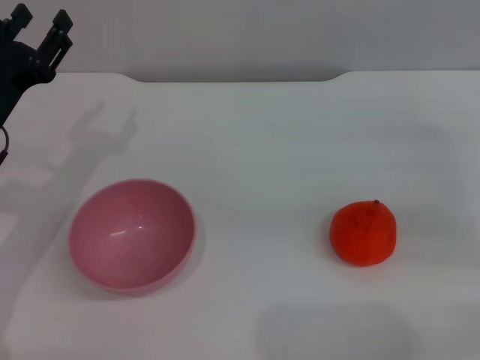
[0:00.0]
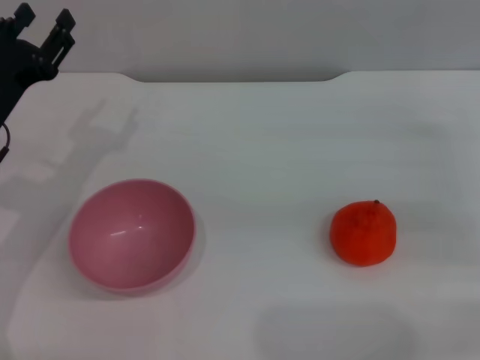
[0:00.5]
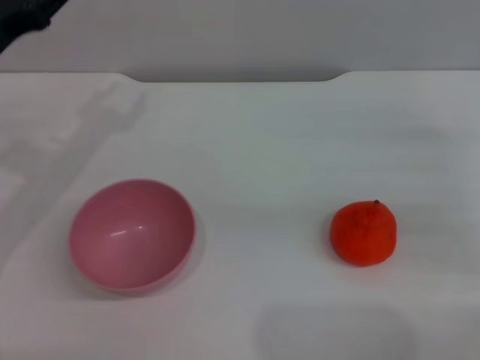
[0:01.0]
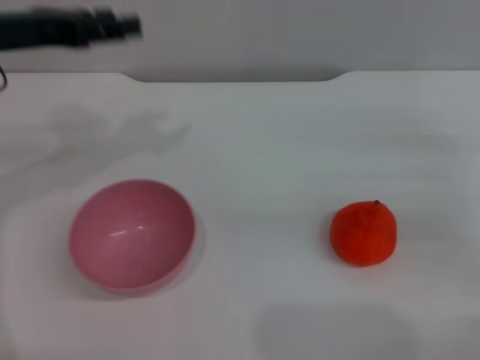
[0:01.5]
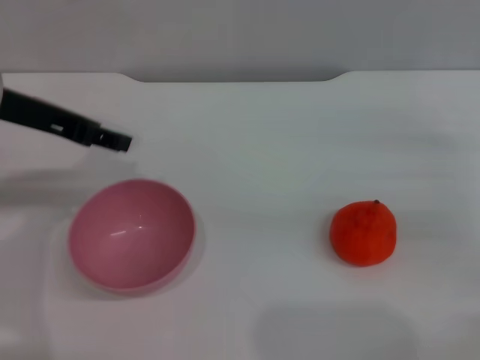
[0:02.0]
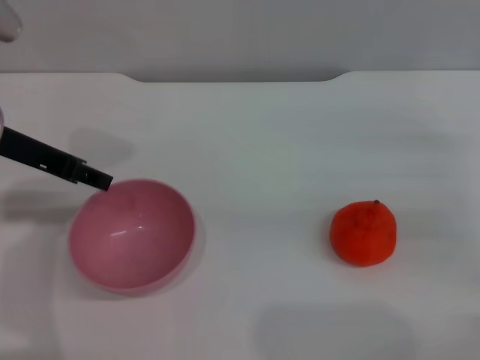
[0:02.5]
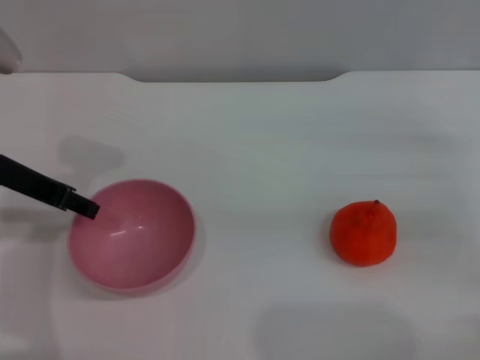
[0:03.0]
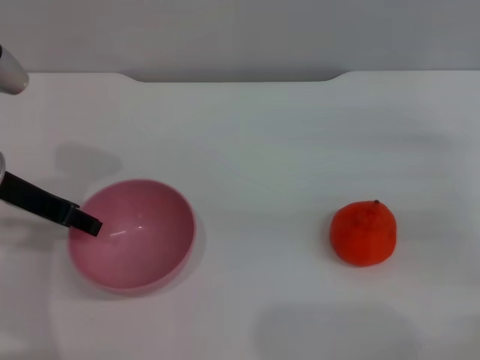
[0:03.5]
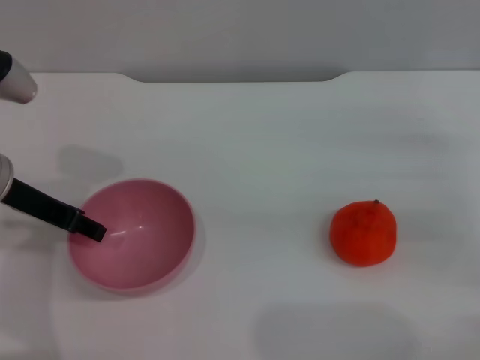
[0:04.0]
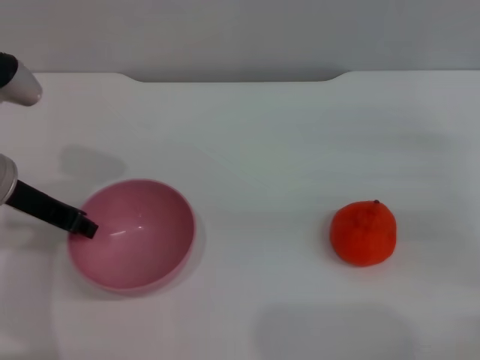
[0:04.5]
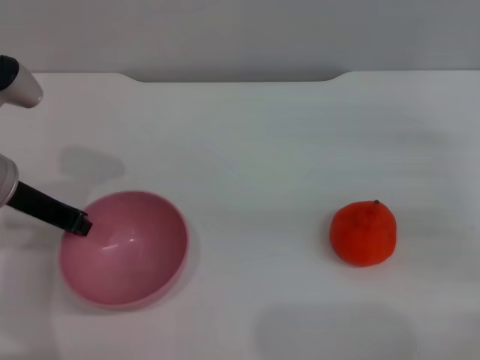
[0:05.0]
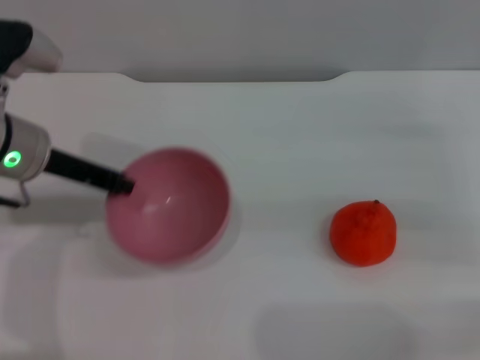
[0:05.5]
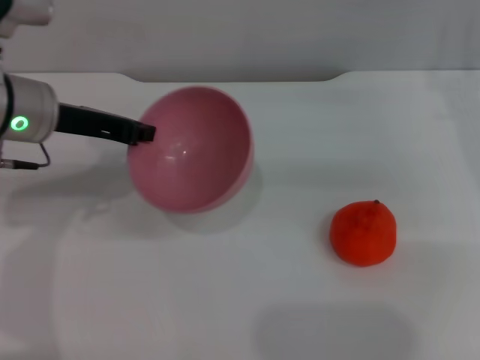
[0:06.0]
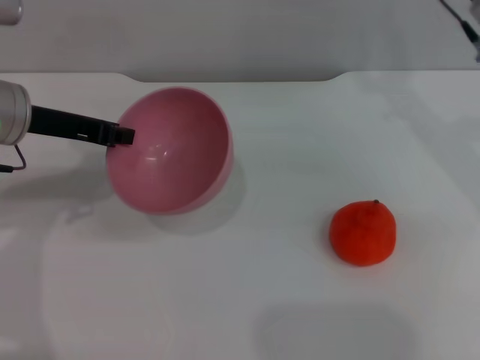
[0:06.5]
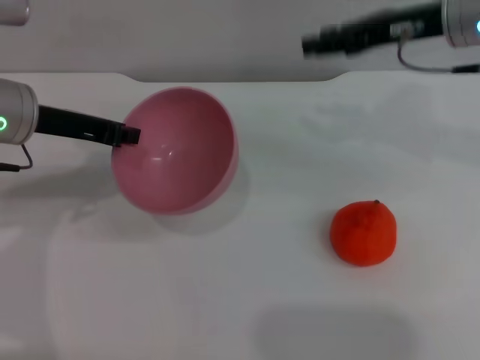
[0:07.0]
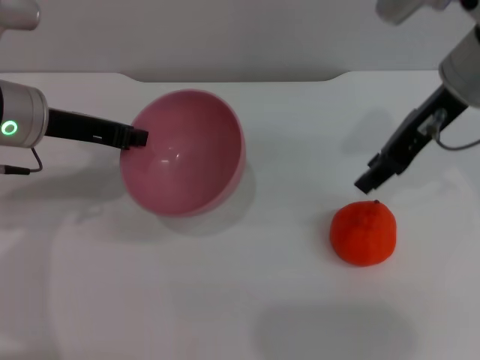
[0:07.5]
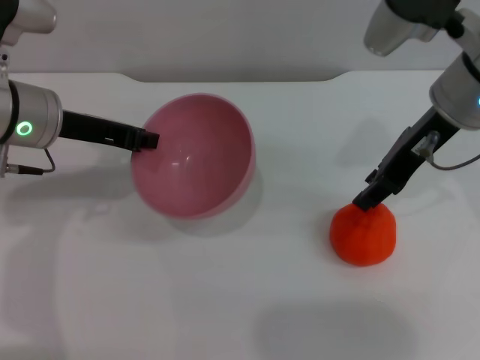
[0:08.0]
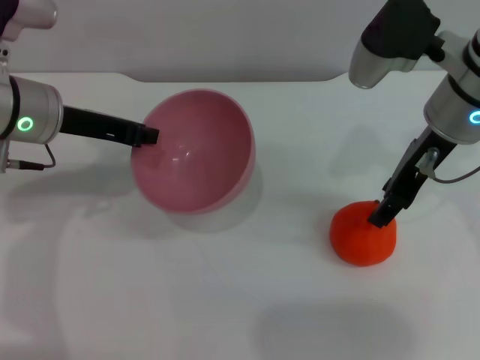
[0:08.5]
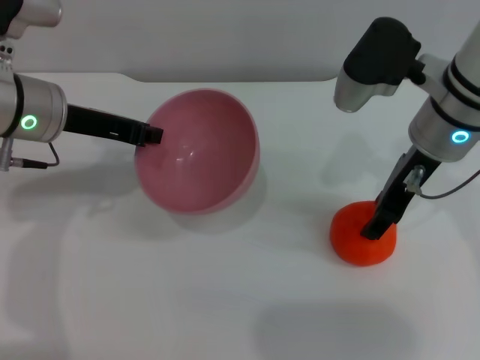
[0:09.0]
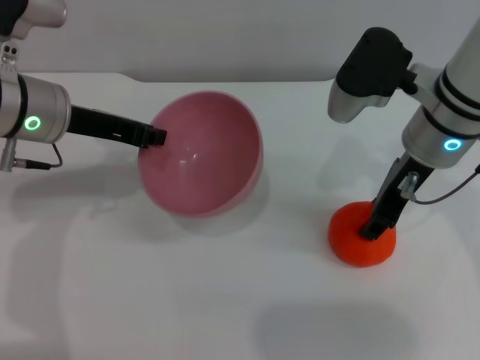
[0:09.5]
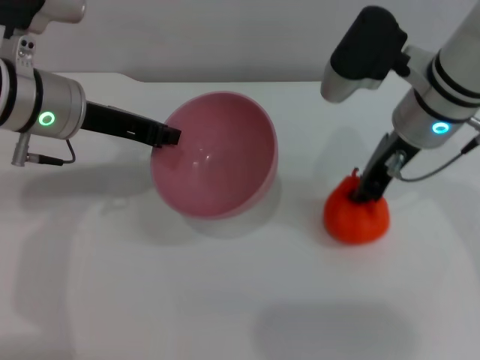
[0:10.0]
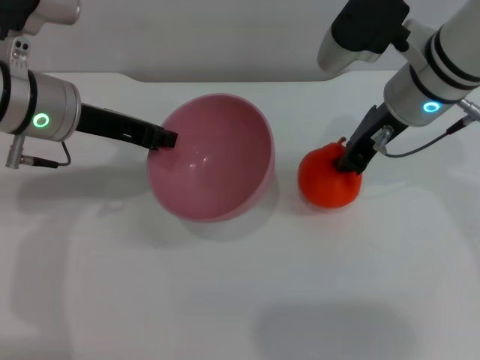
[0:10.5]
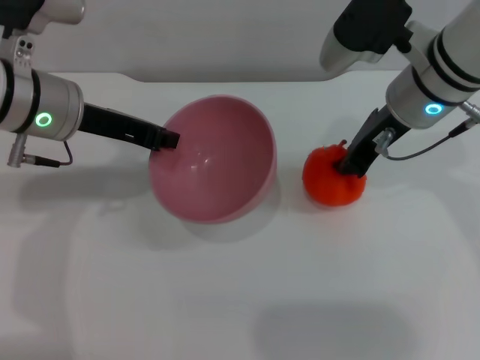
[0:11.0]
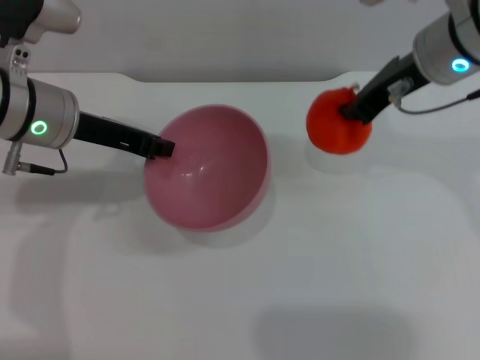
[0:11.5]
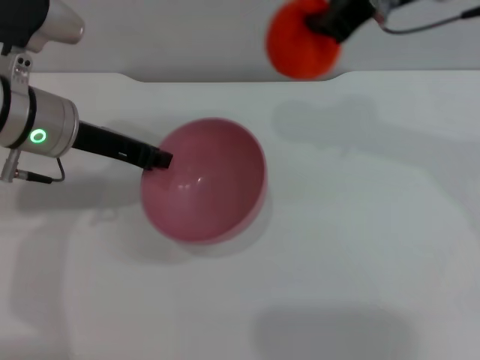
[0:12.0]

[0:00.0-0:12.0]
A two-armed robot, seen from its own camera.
Task of the whole recording: put the orange into the pink bowl and pour it out repeatedly.
Step, 0:00.0 to 0:05.5: Pick up the bowl with the left gripper.
Step, 0:06.0 to 0:10.0: Pick up the orange with the right gripper.
0:00.0 to 0:02.0: The left gripper travels upward by roughly 10 cm.
0:02.0 to 0:04.0: The left gripper travels downward by about 5 cm.
0:04.0 to 0:06.0: The right gripper moves forward, upward and to the left, approximately 10 cm. Meanwhile the left gripper changes place by roughly 5 cm, and closes up.
0:06.0 to 0:08.0: The right gripper goes roughly 10 cm to the left and upward.
0:08.0 to 0:10.0: The right gripper closes up.
0:10.0 to 0:12.0: The right gripper heads upward, covering some 15 cm.

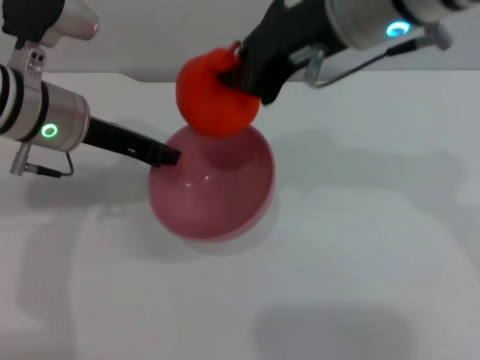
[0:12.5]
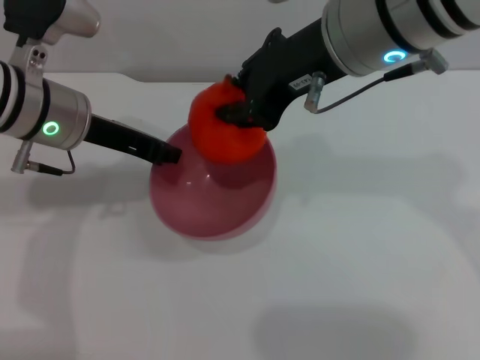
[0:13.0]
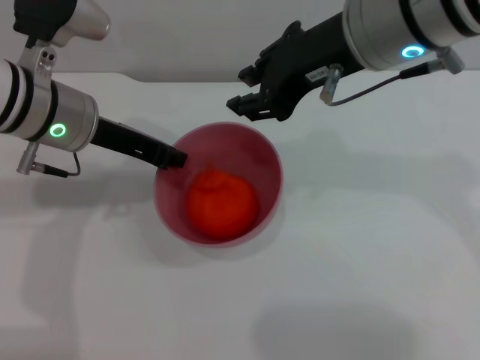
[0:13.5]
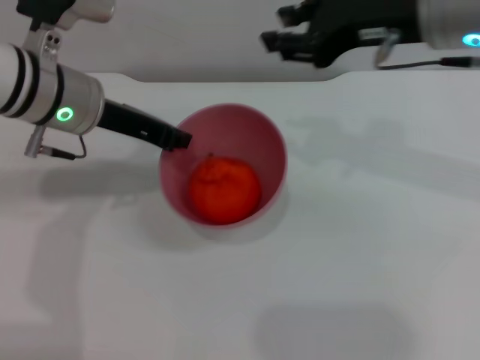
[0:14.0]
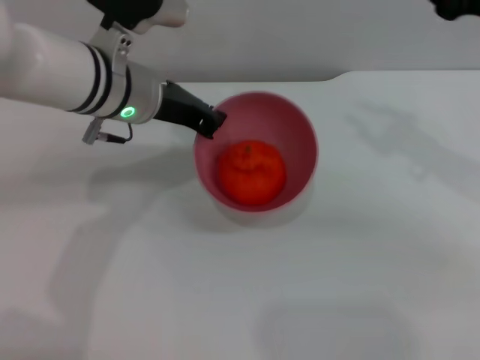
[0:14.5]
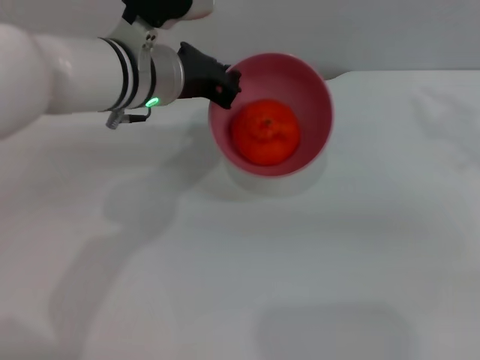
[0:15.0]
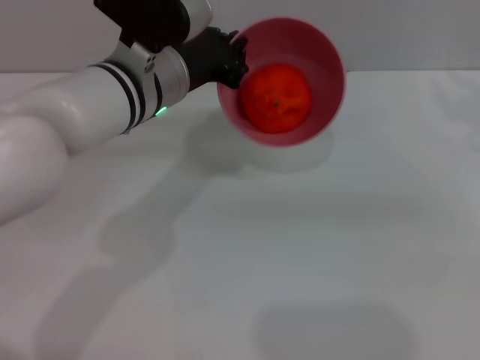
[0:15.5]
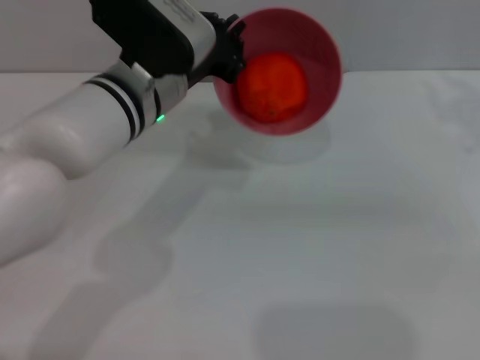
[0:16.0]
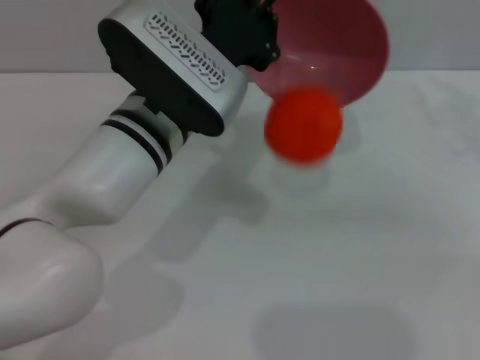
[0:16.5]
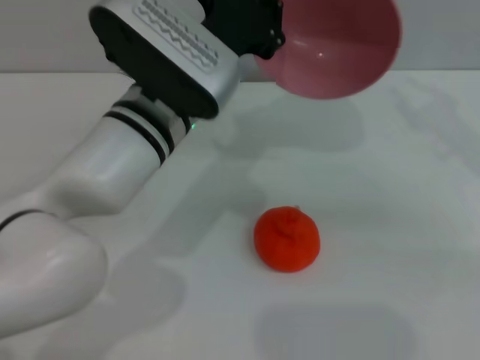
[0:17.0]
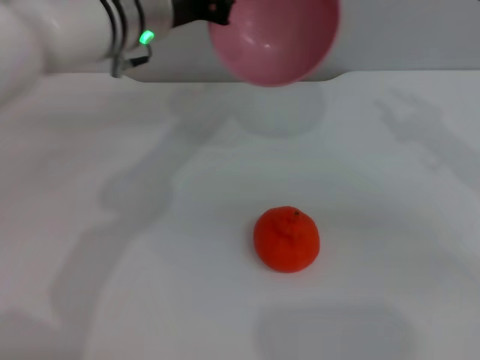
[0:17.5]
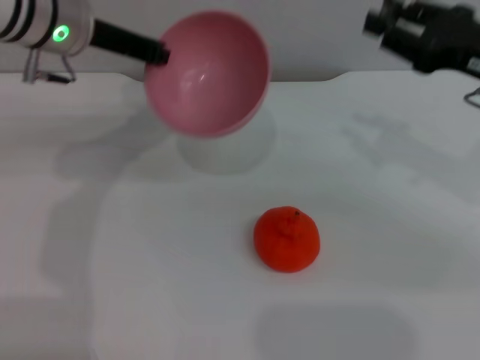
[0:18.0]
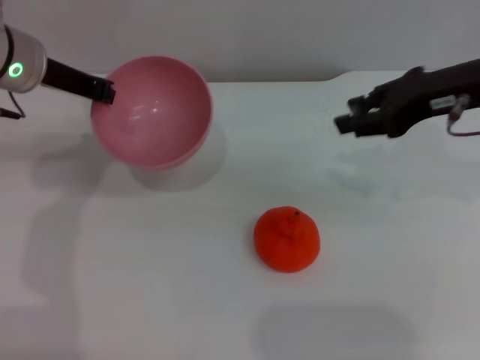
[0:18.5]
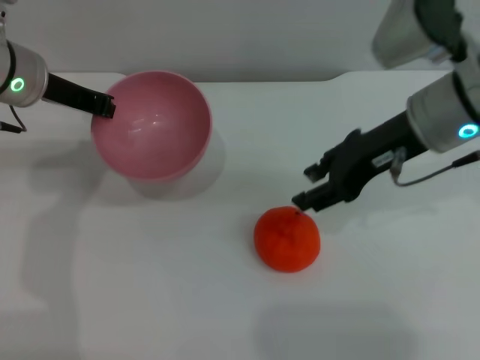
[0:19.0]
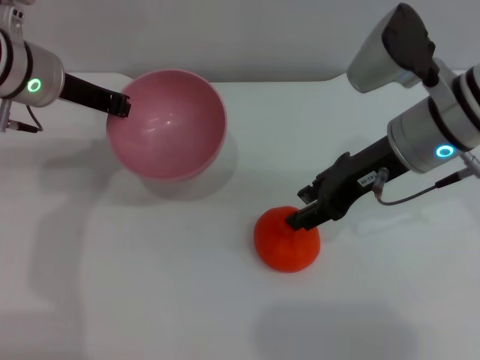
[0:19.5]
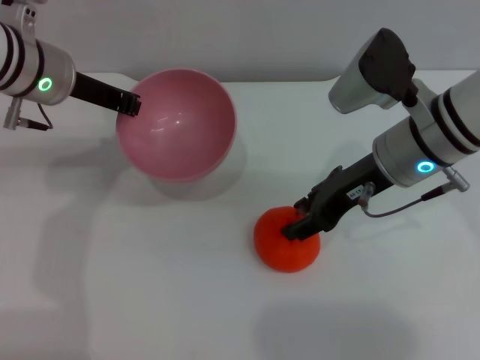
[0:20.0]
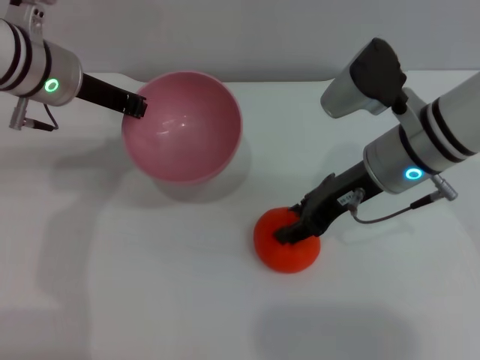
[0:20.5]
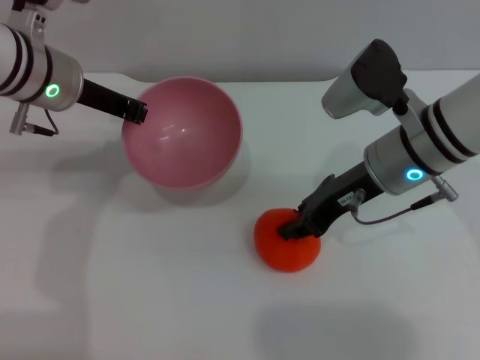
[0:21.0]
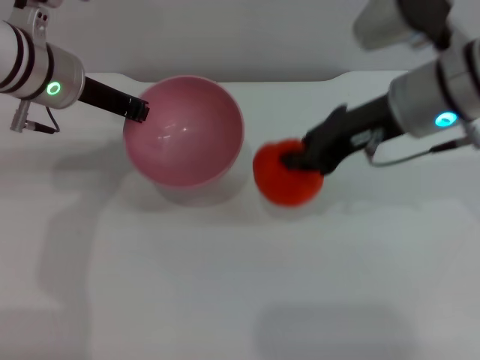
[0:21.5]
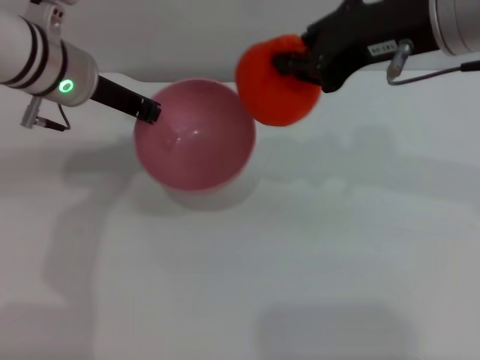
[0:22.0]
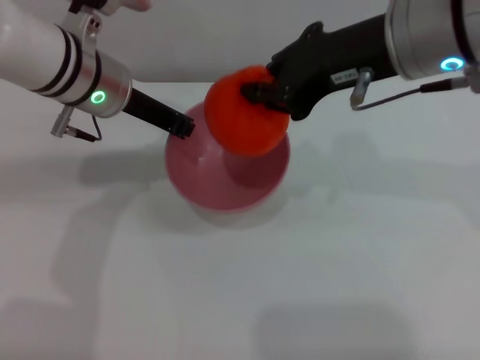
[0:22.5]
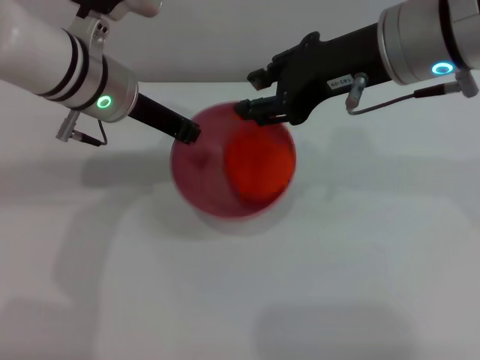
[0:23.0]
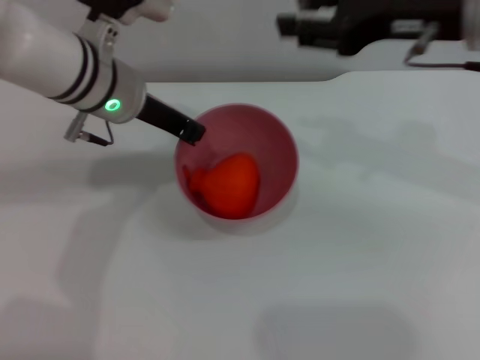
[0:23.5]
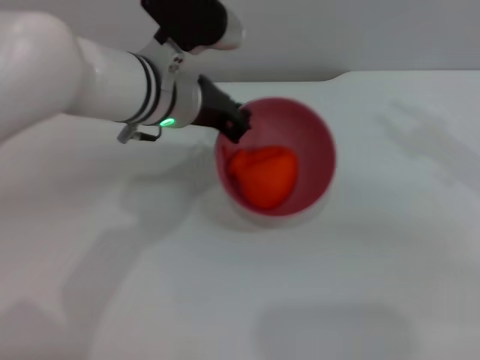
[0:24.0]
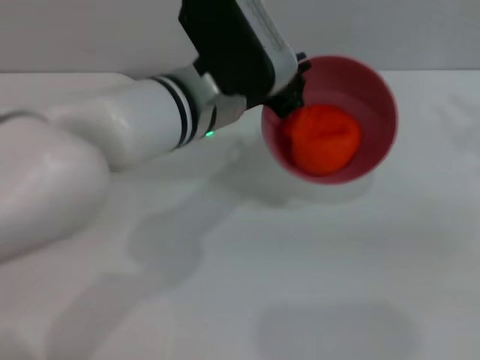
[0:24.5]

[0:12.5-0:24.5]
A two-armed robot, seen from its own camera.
Task of the whole recording: put the orange into the pink bowl and pour it out repeatedly.
Step, 0:14.0 to 0:17.0: Pour the orange out of the bowl.
Step, 0:17.5 to 0:21.0: Pick up the orange with the right gripper.
Step, 0:22.0 to 0:23.0: Place the orange into the bowl.
0:12.5 to 0:14.5: The left gripper moves to the right, about 5 cm, while the right gripper travels to the right and downward by some 20 cm, and opens its fingers.
0:14.5 to 0:16.5: The left gripper travels backward and to the right by about 10 cm.
0:16.5 to 0:18.5: The left gripper heads to the left and forward, covering roughly 15 cm, while the right gripper travels to the left by approximately 10 cm.
0:18.5 to 0:20.5: The right gripper goes about 10 cm downward and to the left.
0:20.5 to 0:22.5: The right gripper travels upward by roughly 15 cm, and closes up.
0:22.5 to 0:24.5: The right gripper is displaced to the right and downward by about 25 cm, and opens up, while the left gripper is displaced to the right by about 10 cm.

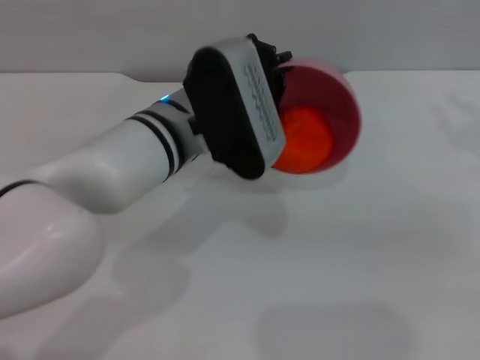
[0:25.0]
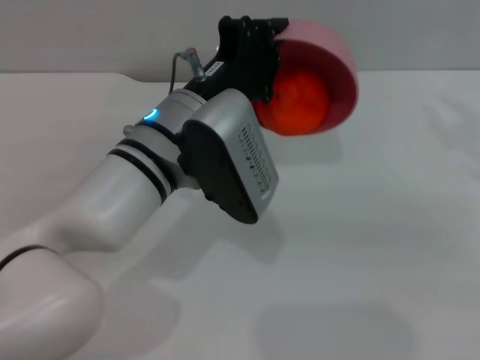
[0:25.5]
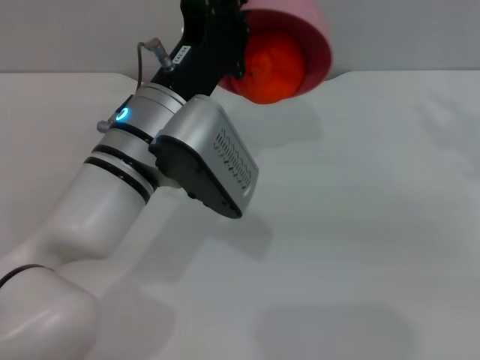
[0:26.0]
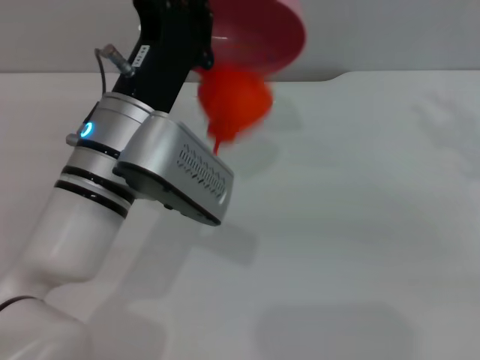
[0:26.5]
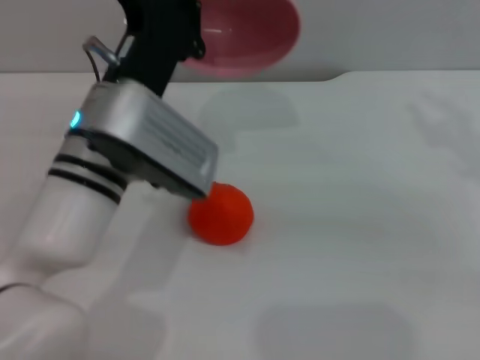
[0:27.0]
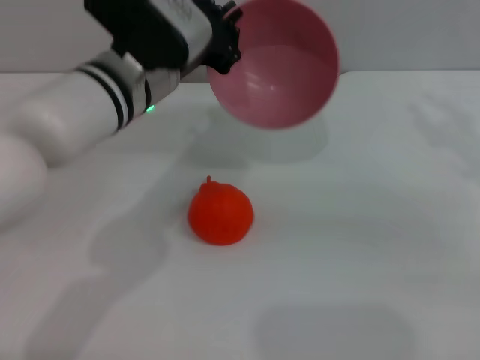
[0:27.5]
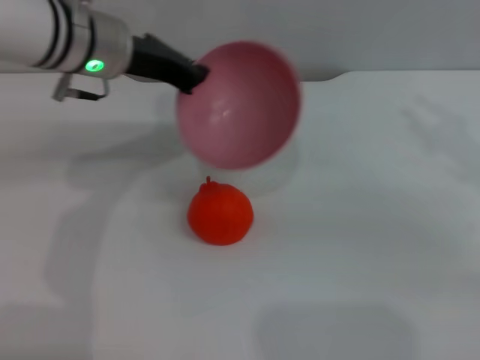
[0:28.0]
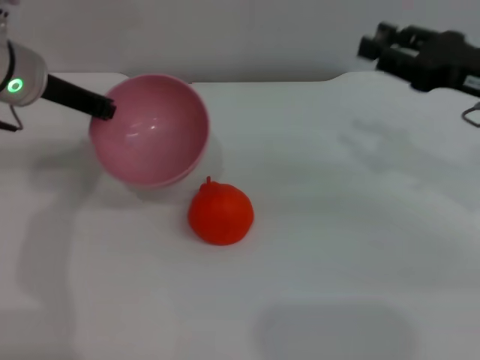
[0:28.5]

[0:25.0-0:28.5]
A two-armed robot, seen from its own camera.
Task of the whole recording: put the orange into the pink bowl and pour it out repeatedly.
Step, 0:25.0 to 0:27.0: Pour the orange out of the bowl.
0:25.0 to 0:27.0: The left gripper shifts by some 5 cm.
0:27.0 to 0:28.5: The left gripper goes some 15 cm to the left and forward.
